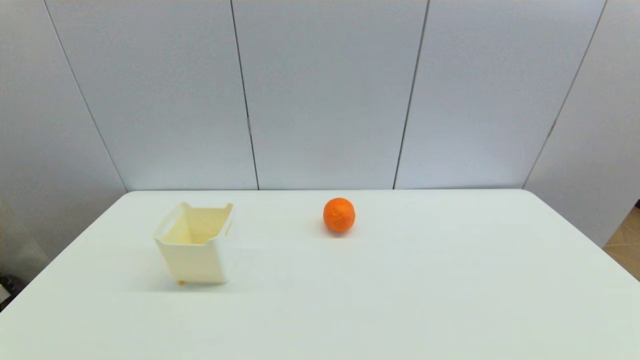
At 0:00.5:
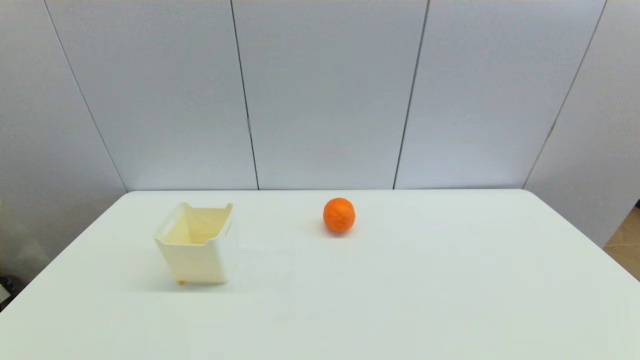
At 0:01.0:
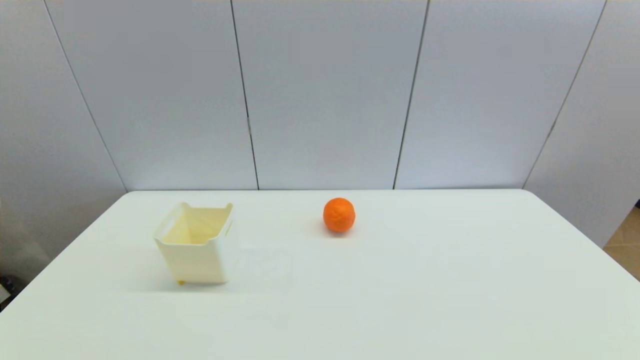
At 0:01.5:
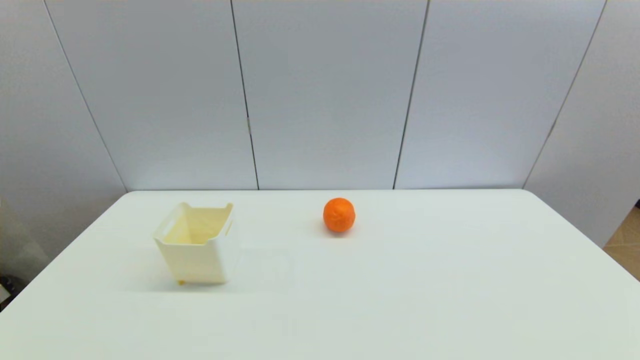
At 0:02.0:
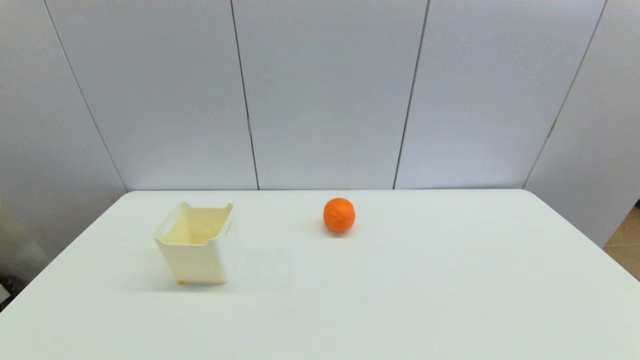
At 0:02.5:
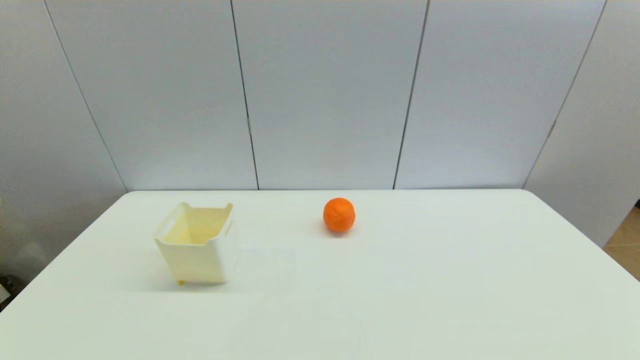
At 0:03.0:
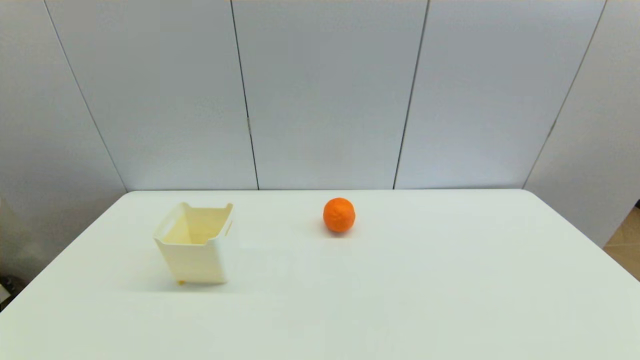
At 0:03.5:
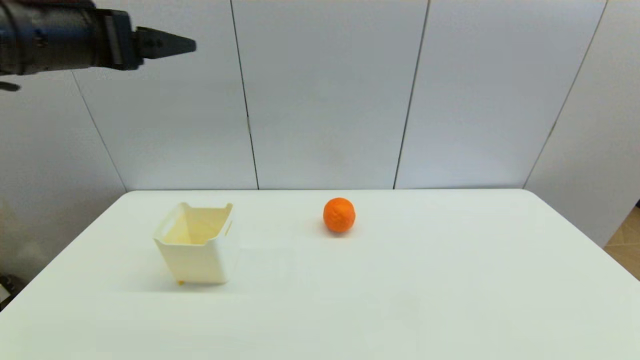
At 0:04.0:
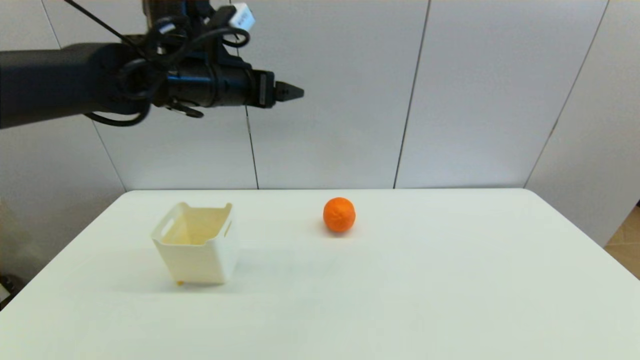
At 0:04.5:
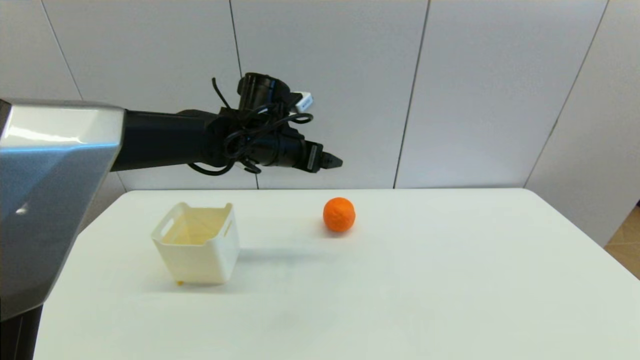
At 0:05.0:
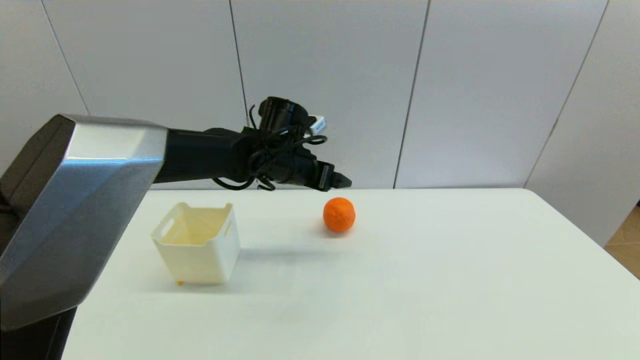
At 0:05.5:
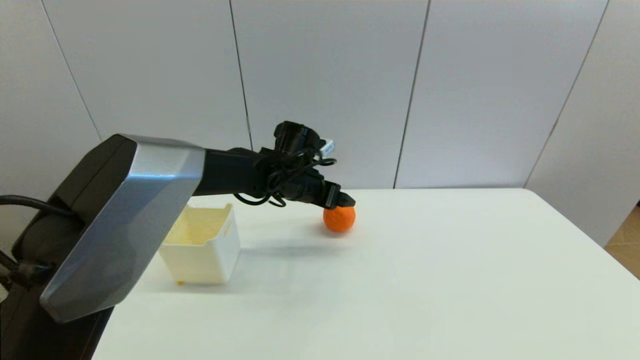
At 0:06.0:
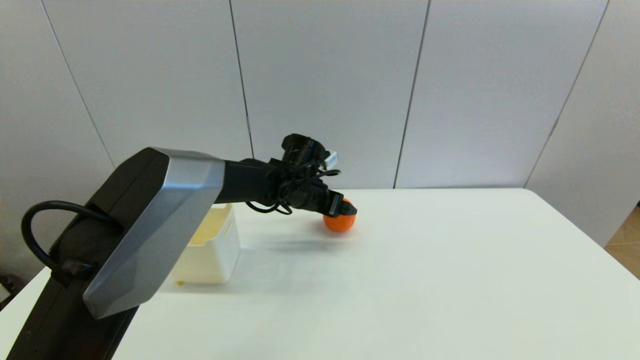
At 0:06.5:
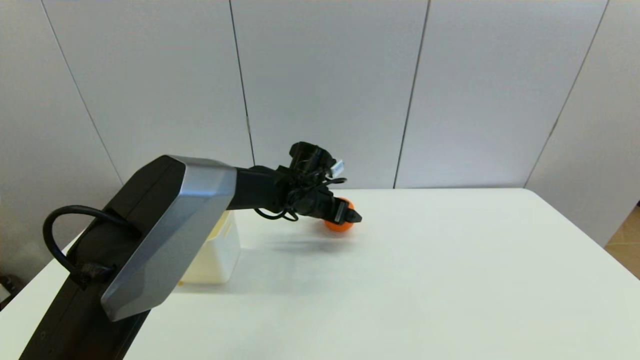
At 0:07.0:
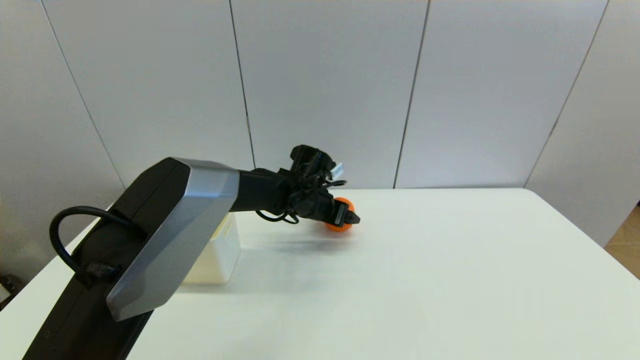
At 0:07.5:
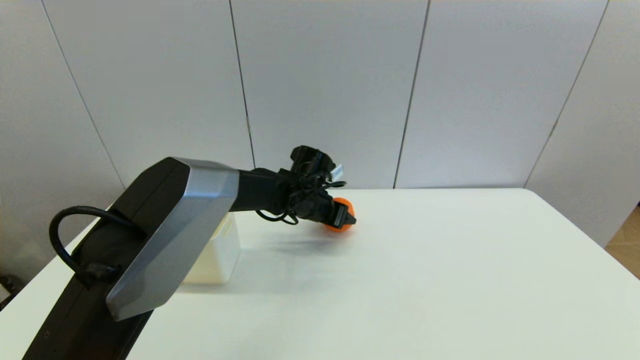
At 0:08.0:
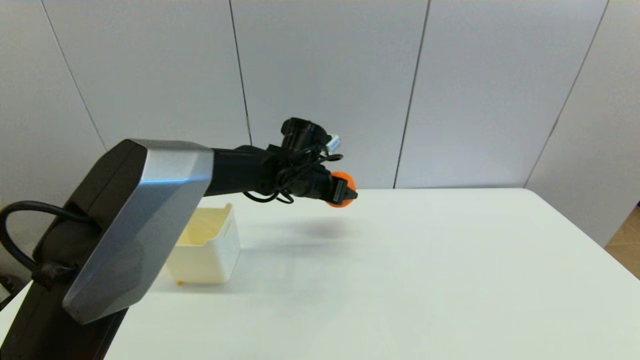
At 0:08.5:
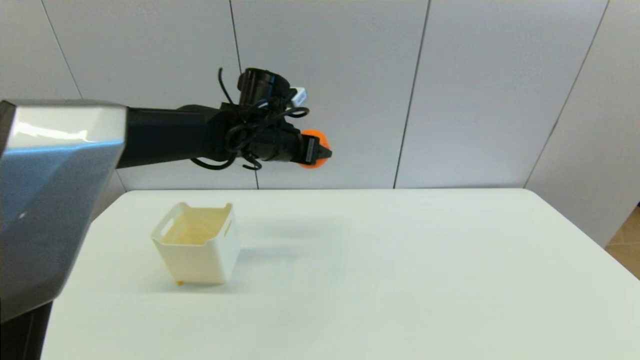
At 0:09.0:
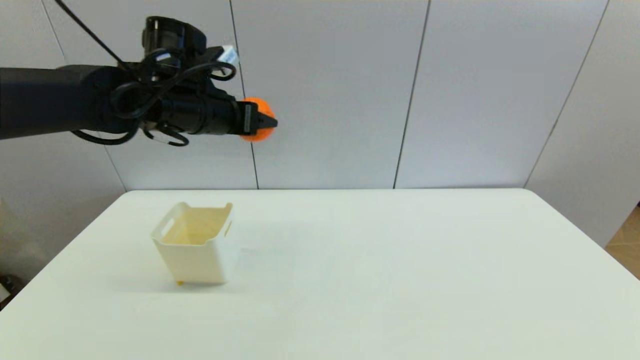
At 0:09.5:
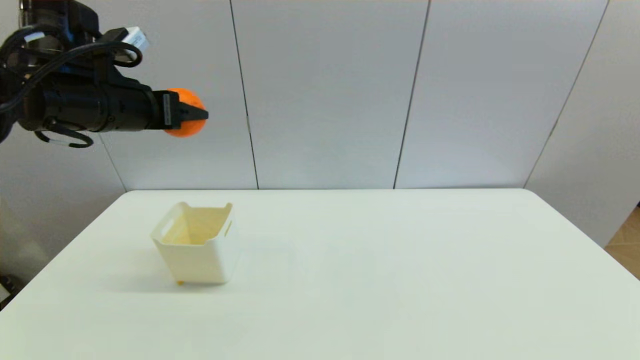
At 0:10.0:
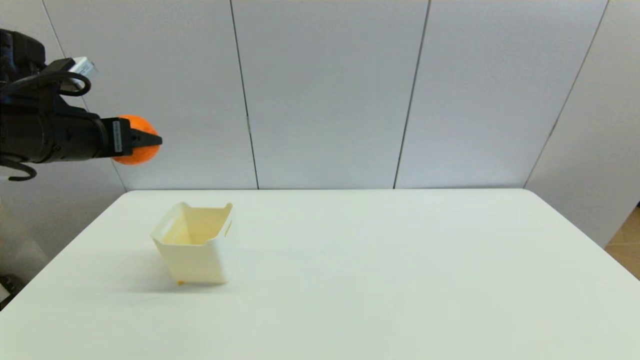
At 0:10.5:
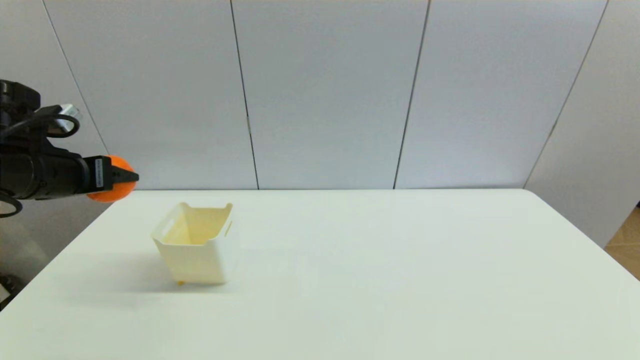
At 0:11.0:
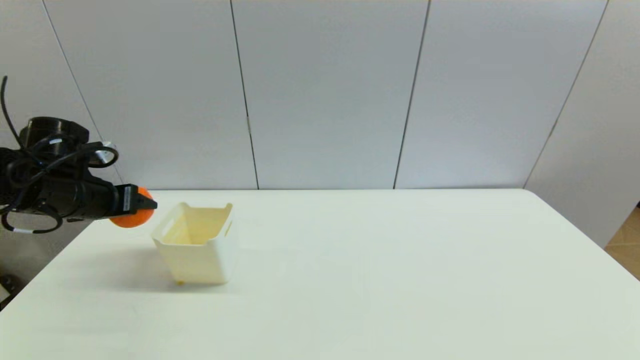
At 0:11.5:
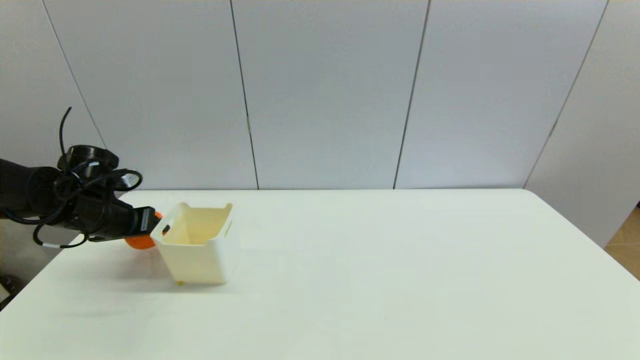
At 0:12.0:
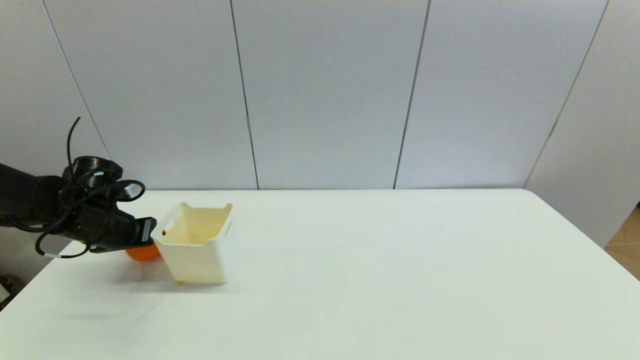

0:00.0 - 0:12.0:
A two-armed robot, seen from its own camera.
Step, 0:03.5 - 0:07.5: Grasp the orange with left gripper.
0:02.0 - 0:04.0: The left gripper goes about 50 cm forward, upward and to the right.
0:04.0 - 0:06.0: The left gripper goes about 25 cm downward and to the right.
0:06.0 - 0:08.0: The left gripper closes.
0:08.0 - 0:10.0: The left gripper goes about 35 cm to the left, upward and backward.
0:10.0 - 0:12.0: The left gripper heads downward, covering roughly 15 cm.

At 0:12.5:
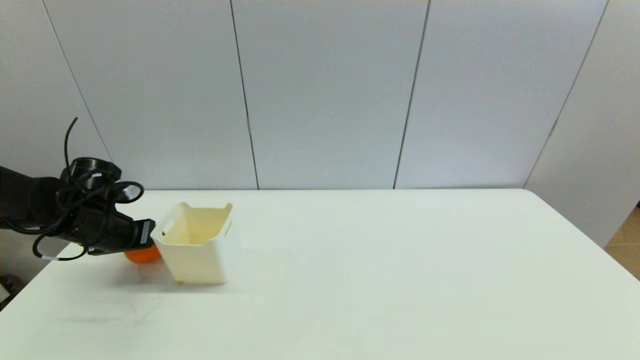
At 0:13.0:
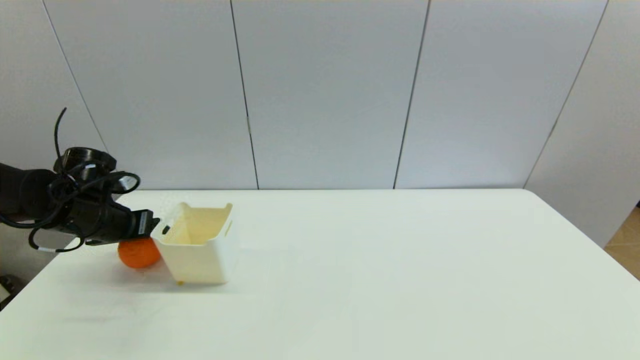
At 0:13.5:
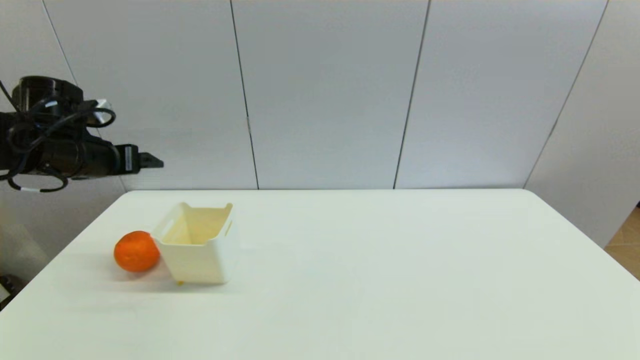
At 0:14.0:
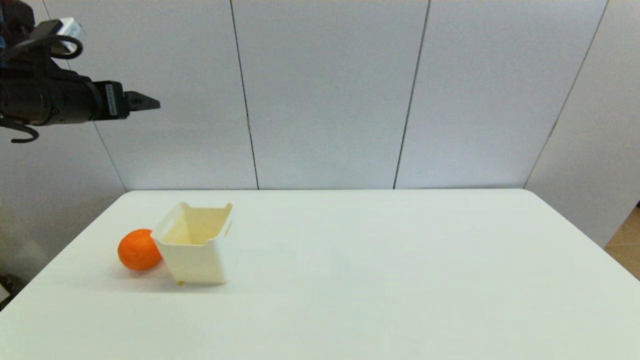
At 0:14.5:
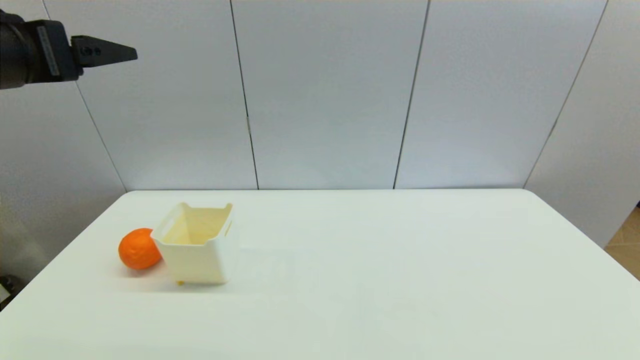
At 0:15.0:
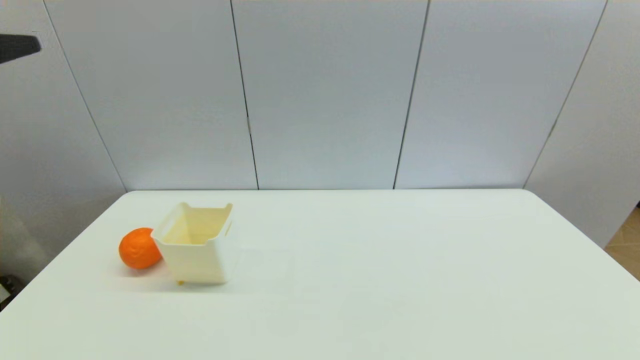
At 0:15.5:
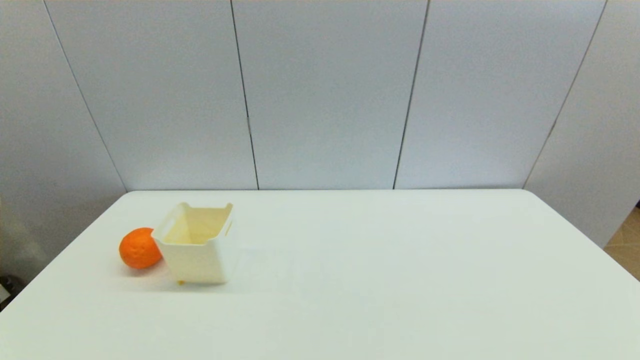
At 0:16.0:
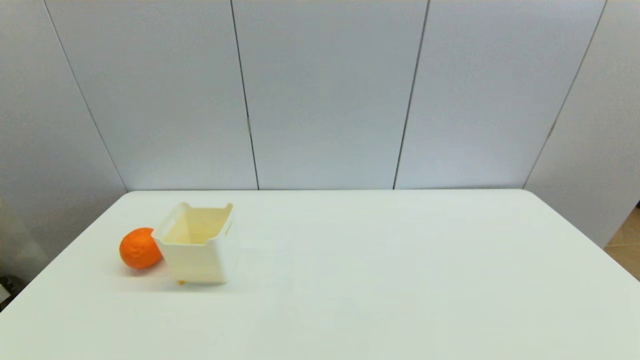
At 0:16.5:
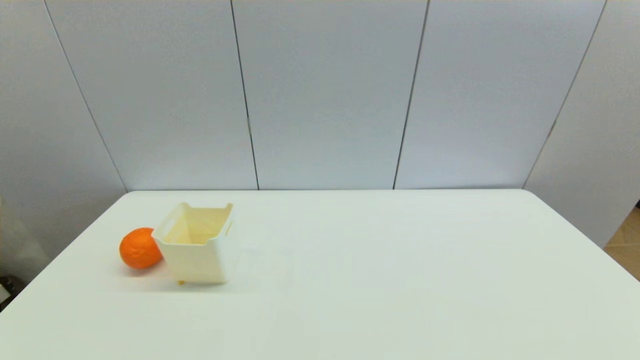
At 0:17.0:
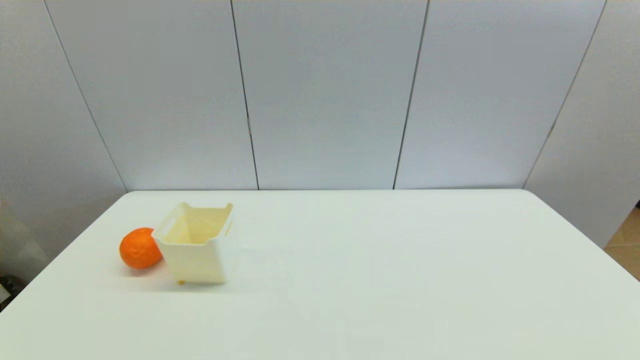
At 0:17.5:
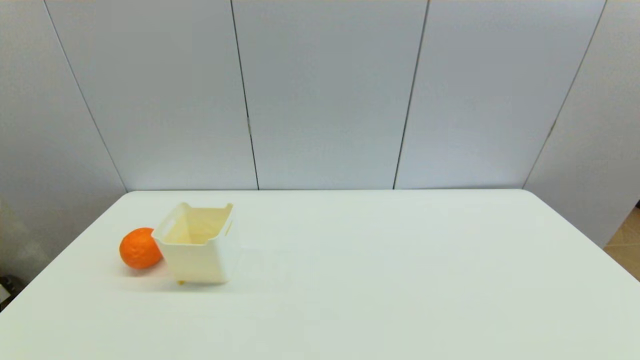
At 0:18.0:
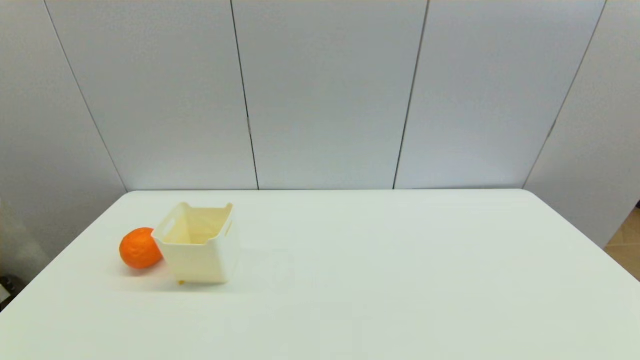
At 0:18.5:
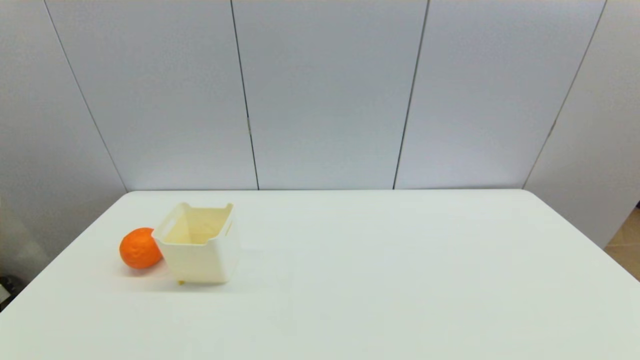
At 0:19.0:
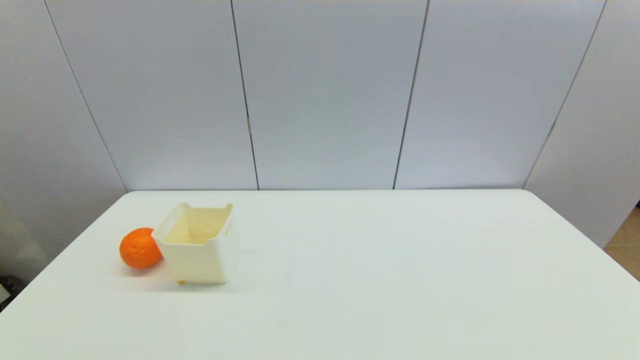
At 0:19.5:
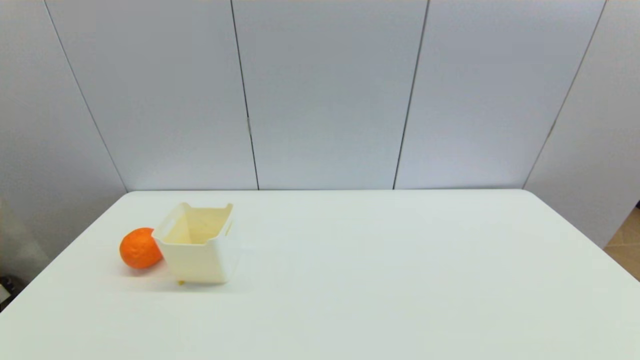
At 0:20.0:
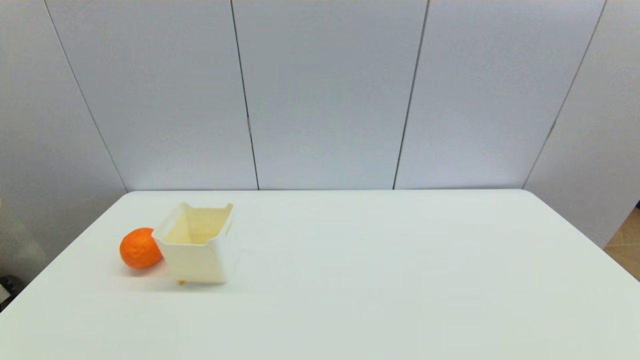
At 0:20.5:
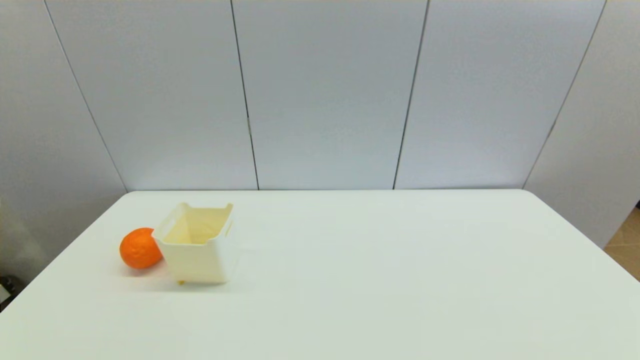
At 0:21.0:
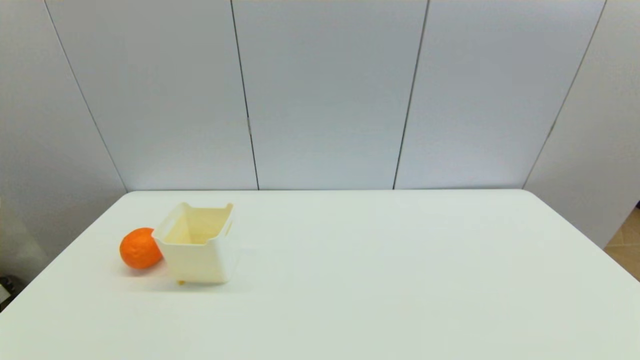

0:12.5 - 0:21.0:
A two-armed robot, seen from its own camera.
0:12.5 - 0:14.5: The left gripper goes roughly 30 cm upward and backward, and opens.
0:14.5 - 0:16.5: The left gripper goes about 35 cm backward and downward.
0:19.0 - 0:21.0: Both grippers stay put.
